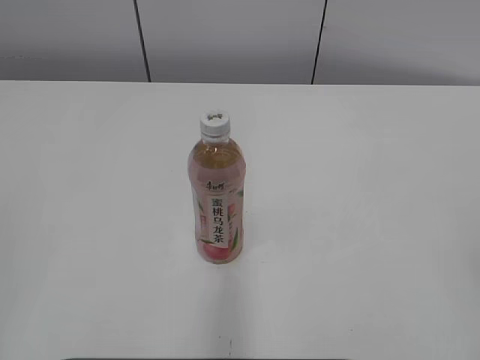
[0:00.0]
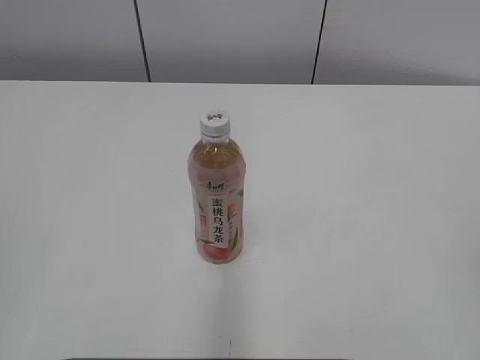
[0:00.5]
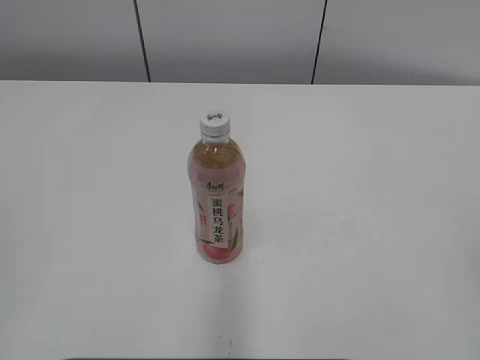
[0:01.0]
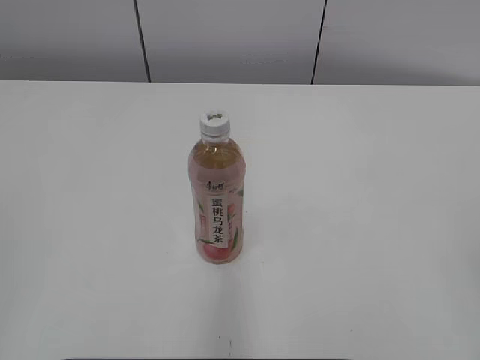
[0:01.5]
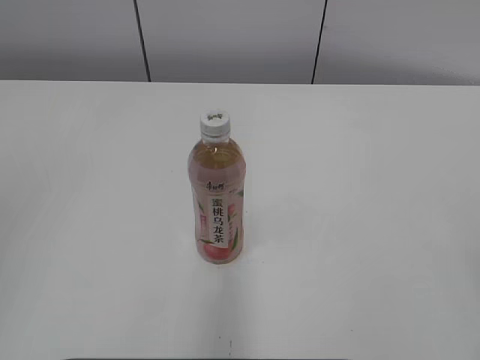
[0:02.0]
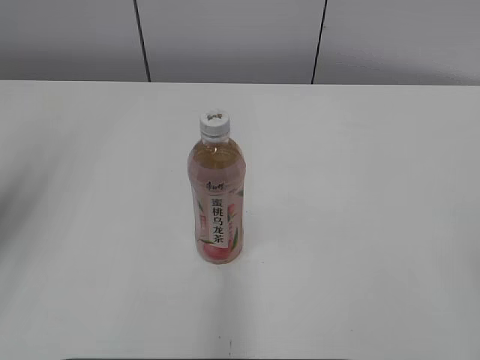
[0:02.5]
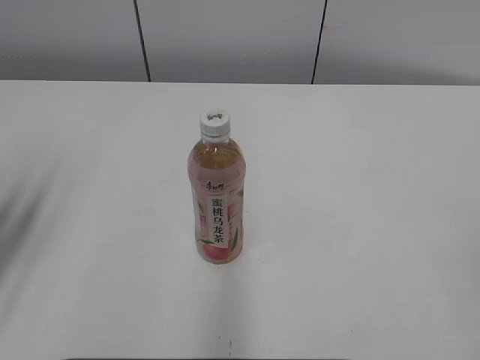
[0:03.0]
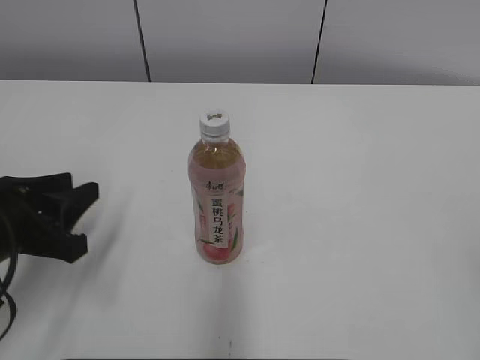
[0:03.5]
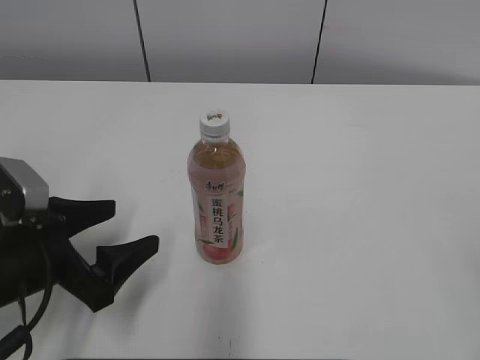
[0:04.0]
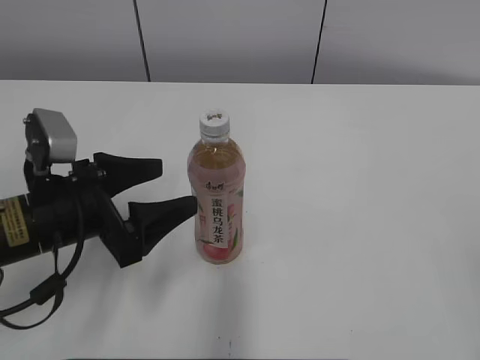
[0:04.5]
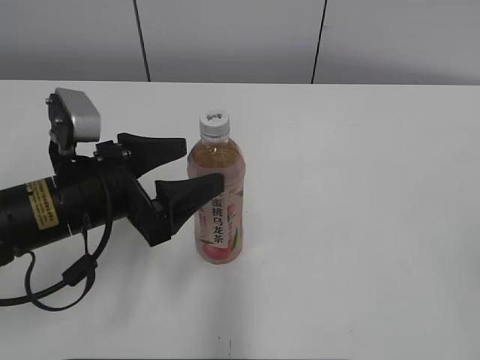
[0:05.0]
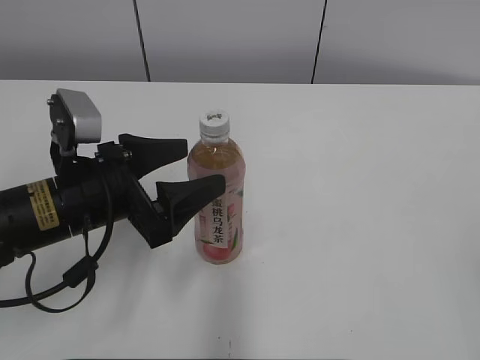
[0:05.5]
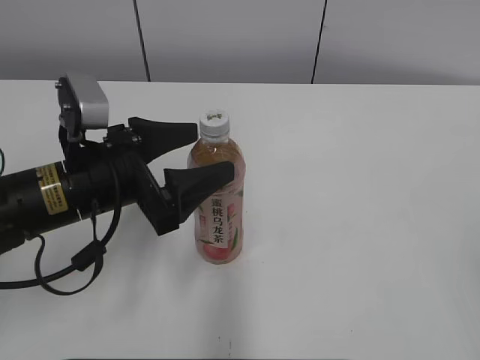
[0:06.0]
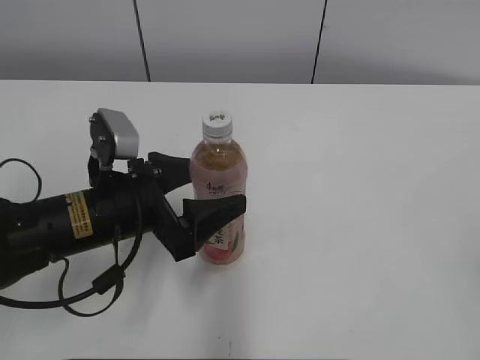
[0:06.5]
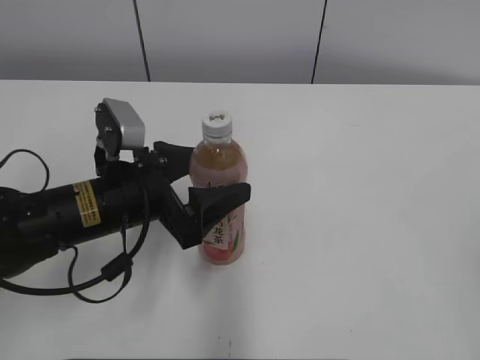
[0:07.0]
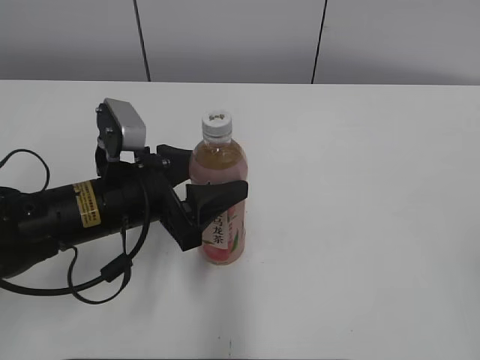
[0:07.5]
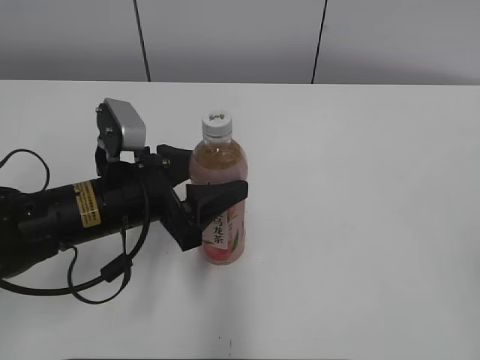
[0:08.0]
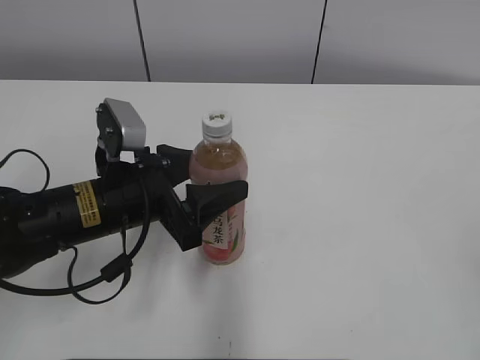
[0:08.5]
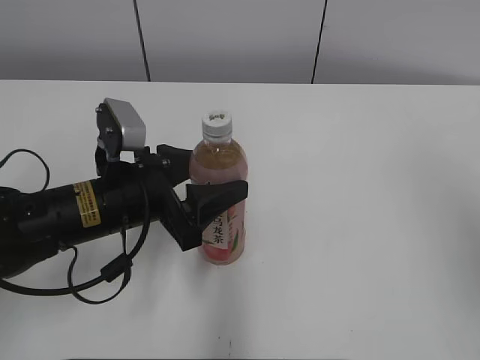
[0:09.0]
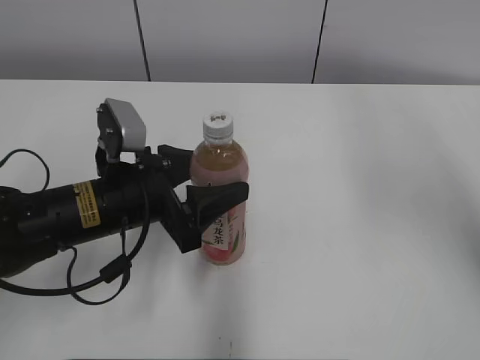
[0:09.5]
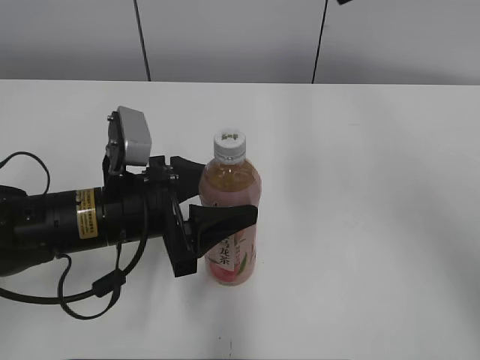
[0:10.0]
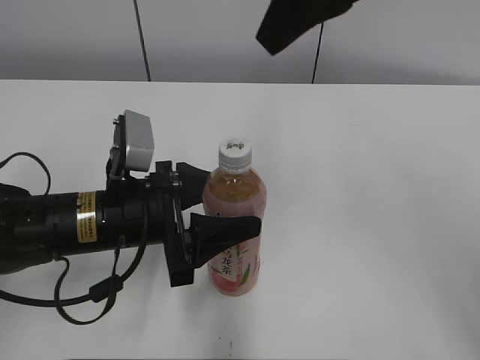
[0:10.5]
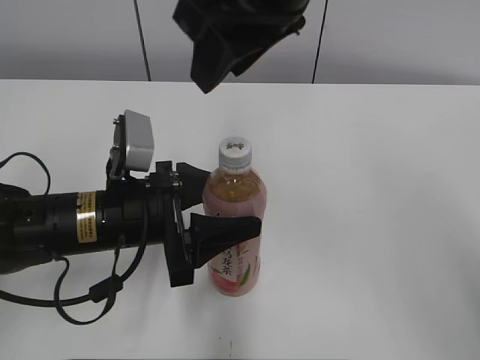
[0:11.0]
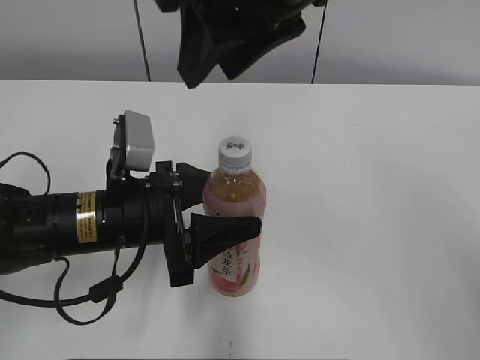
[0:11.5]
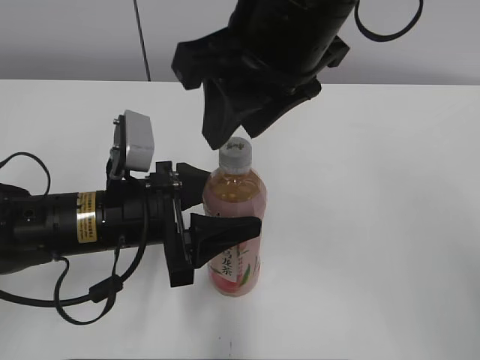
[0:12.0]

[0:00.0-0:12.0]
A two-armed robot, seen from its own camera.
Step, 0:00.0 to 0:07.5: Grab the Peach Oolong Tea with the left hand.
0:02.0 to 0:04.0: The left gripper is displaced downward and forward by about 30 cm, and opens.
0:04.0 to 0:06.0: The left gripper travels to the right and forward by some 10 cm.
0:06.0 to 0:08.0: The left gripper closes.
0:08.0 to 0:10.0: The right gripper goes roughly 35 cm forward, to the left and upward.
0:10.0 to 0:12.0: The right gripper heads to the left and downward, covering approximately 15 cm.

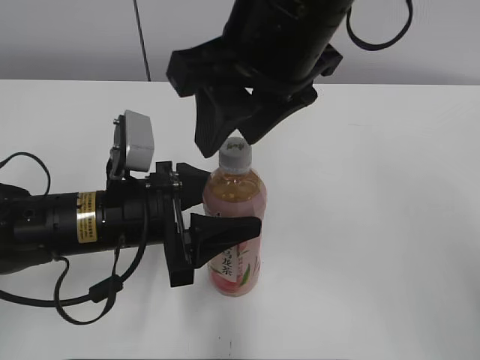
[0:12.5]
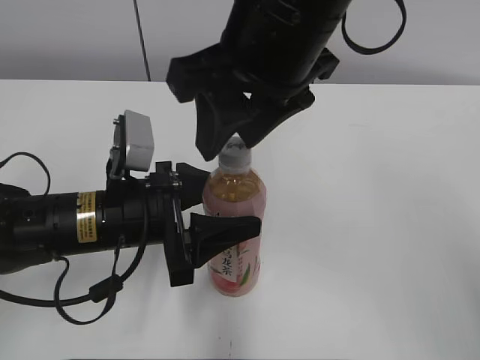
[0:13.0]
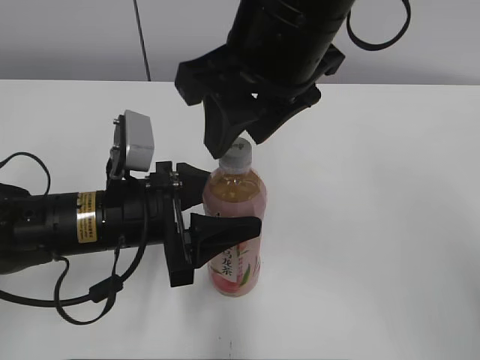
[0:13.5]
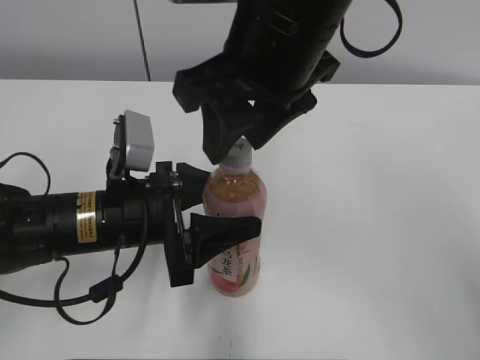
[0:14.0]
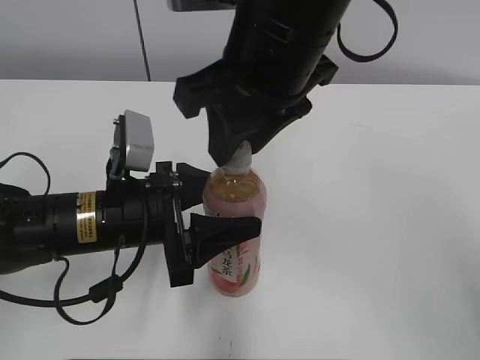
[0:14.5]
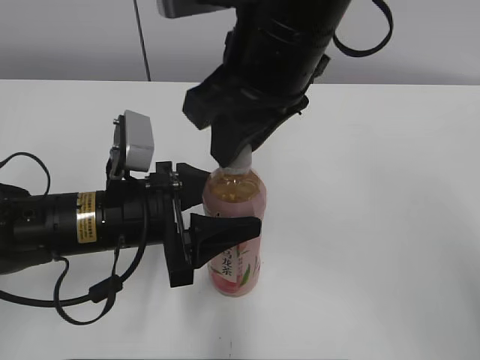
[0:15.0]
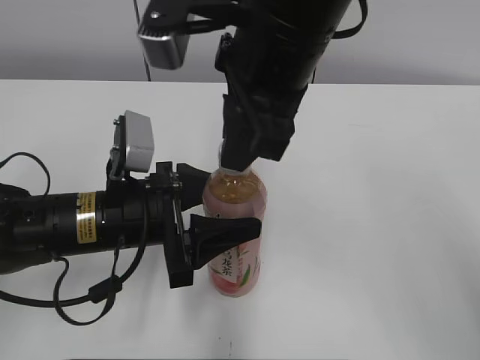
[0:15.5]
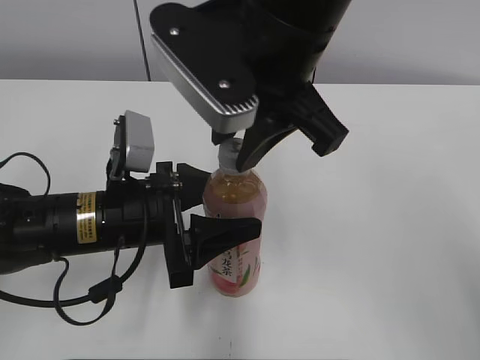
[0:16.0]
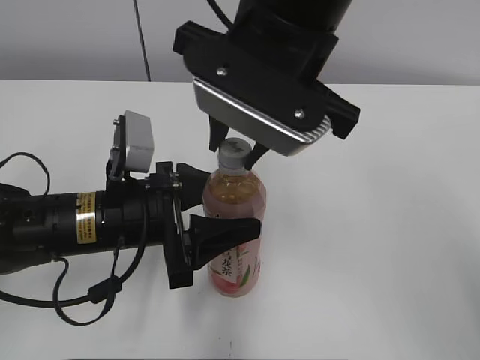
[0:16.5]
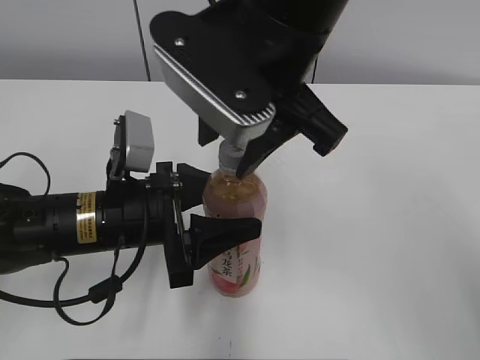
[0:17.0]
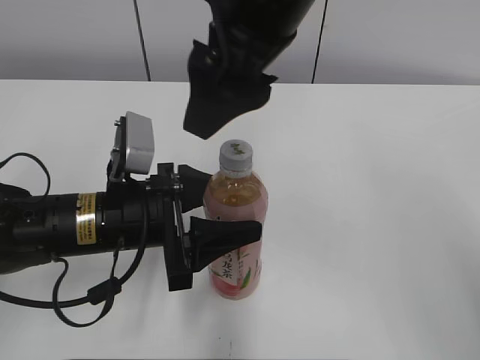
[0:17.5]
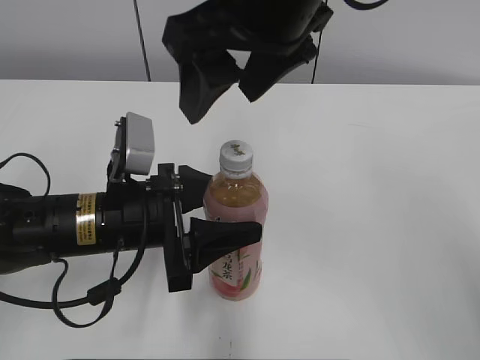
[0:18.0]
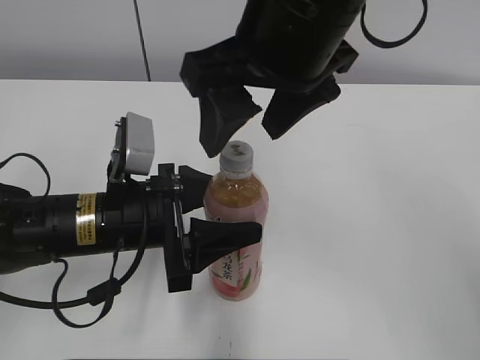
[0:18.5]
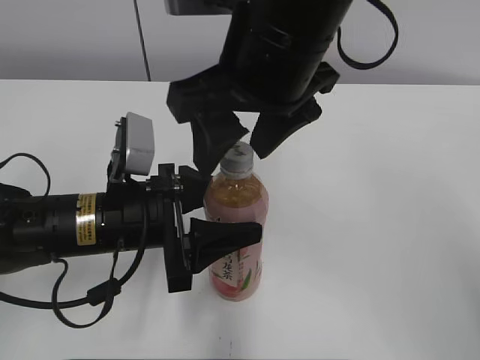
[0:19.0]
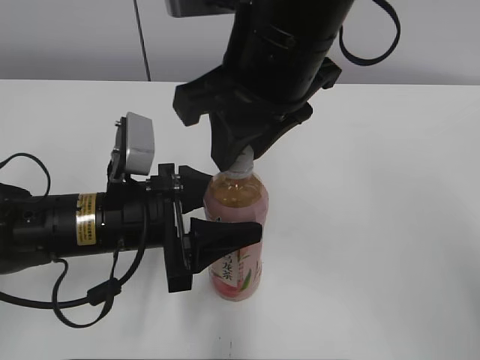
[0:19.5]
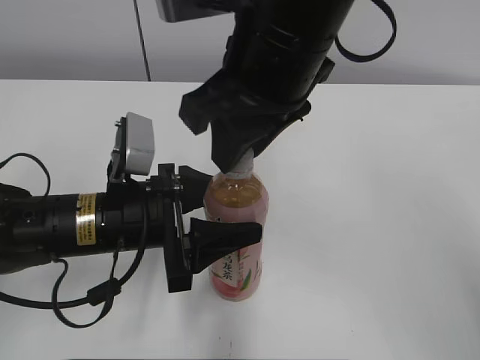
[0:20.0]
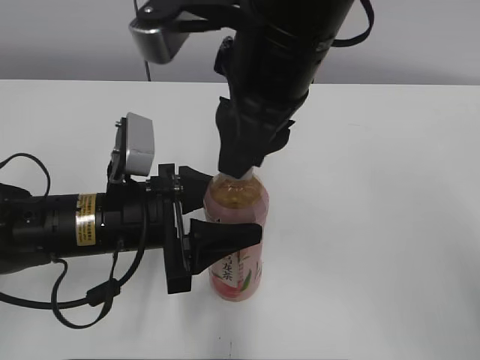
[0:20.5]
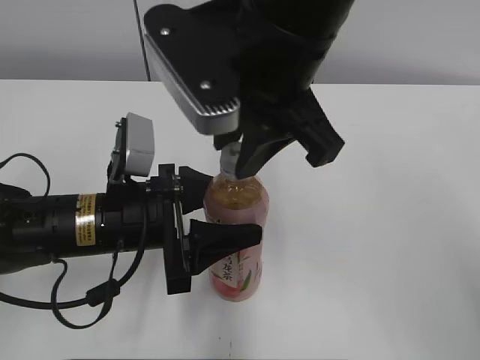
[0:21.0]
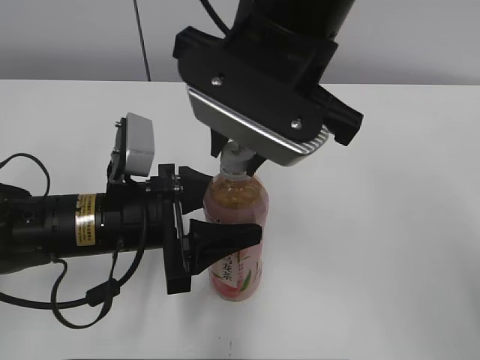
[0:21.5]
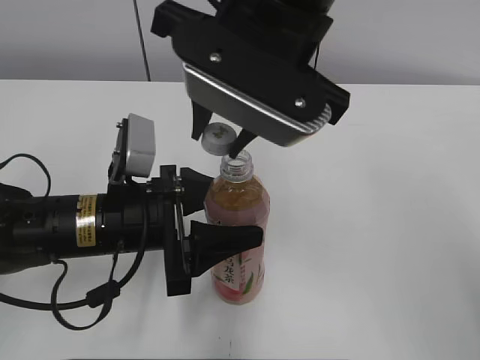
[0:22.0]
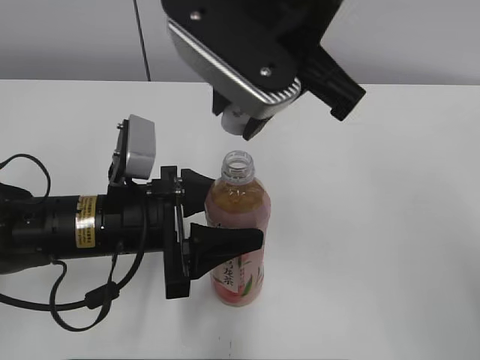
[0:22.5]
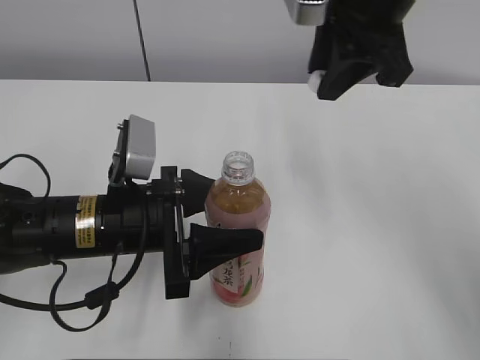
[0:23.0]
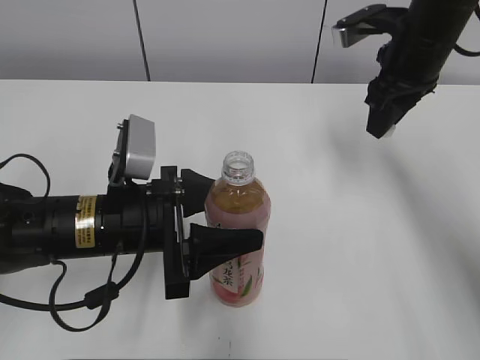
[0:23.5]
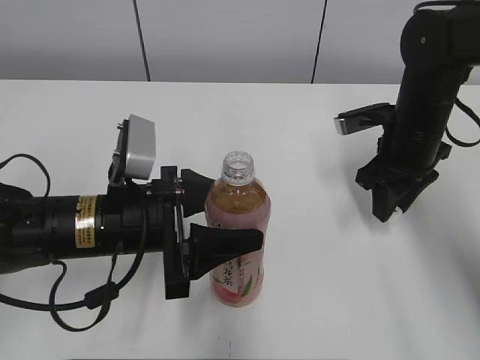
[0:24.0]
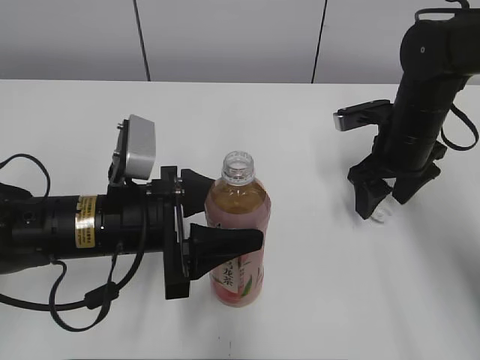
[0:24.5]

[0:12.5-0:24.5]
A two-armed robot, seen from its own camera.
0:12.5 to 0:14.5: There are only small adjustments of the grippers.
0:16.5 to 0:18.5: The right gripper opens its fingers.
0:18.5 to 0:20.5: The right gripper closes its fingers.
0:22.5 to 0:24.5: The right gripper shifts approximately 30 cm downward, to the right and forward, and opens its fingers.

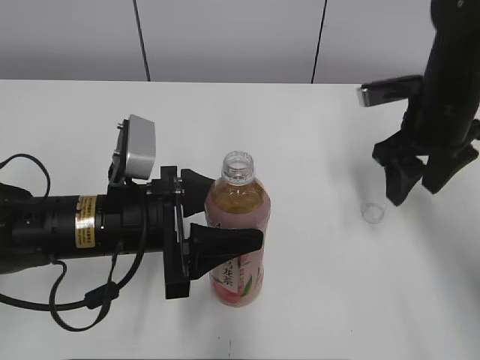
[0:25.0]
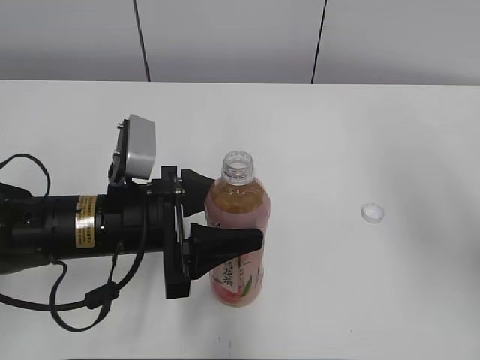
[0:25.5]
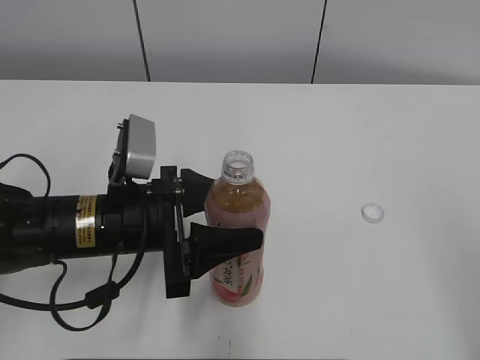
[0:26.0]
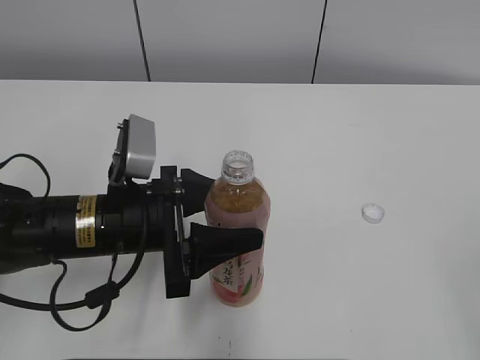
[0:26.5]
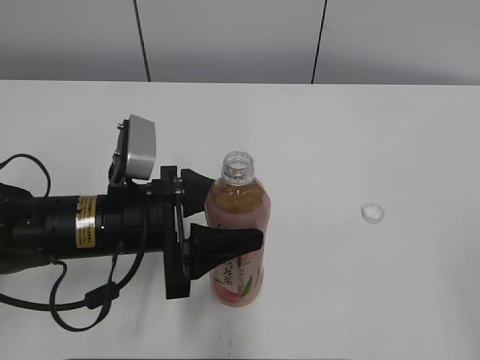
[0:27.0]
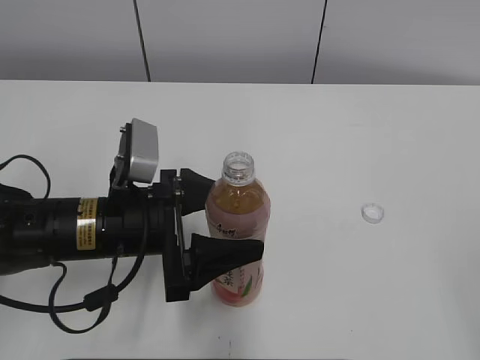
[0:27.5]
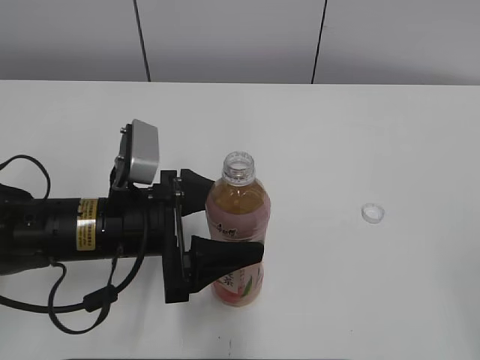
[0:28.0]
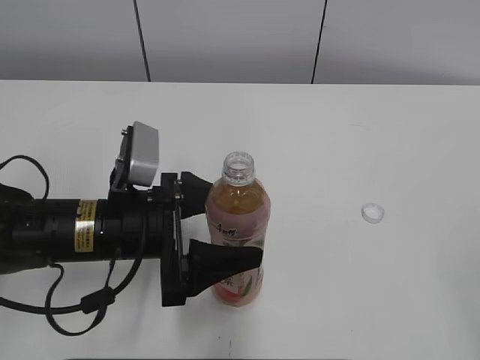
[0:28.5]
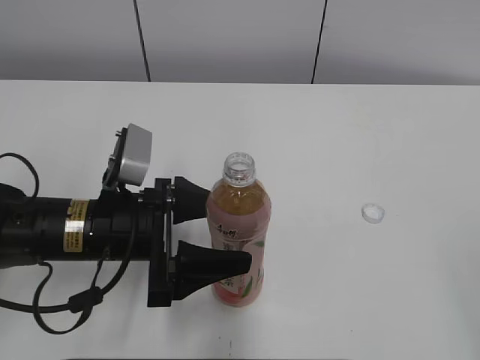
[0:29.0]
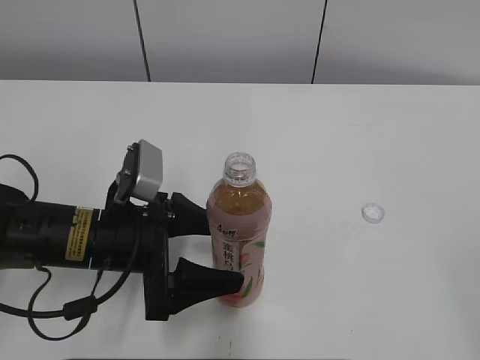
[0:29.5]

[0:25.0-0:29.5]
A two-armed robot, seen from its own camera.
0:25.0 to 0:27.0: The right gripper moves backward, roughly 35 cm.
0:27.0 to 0:29.5: The left gripper opens up.
